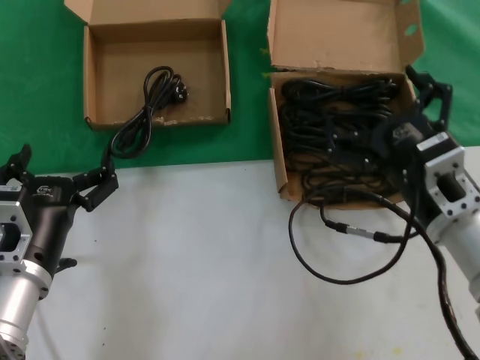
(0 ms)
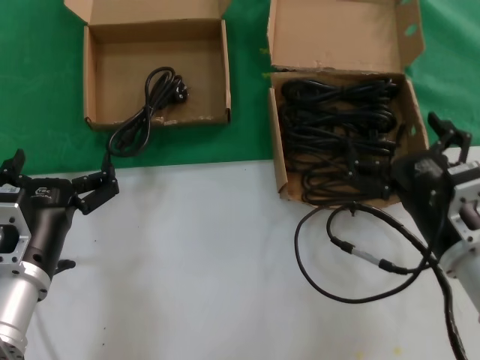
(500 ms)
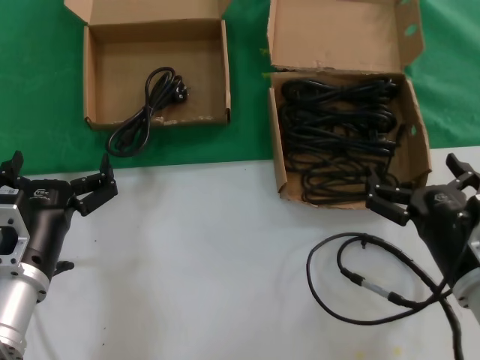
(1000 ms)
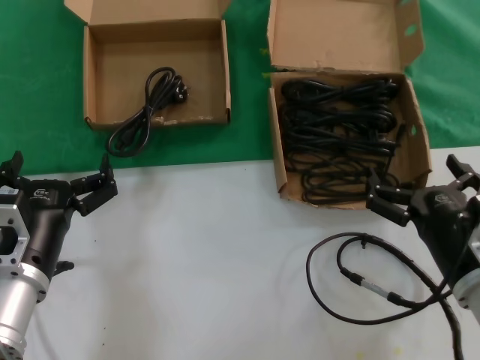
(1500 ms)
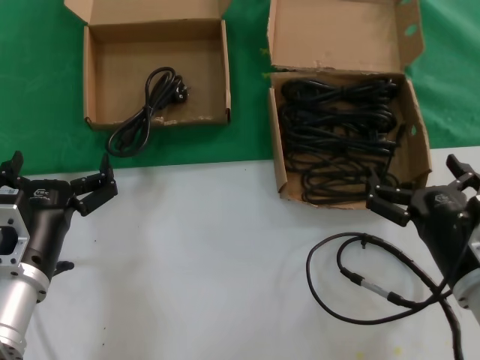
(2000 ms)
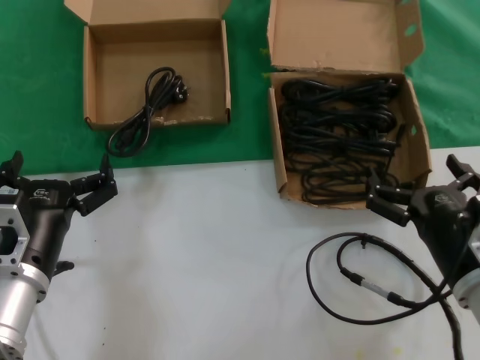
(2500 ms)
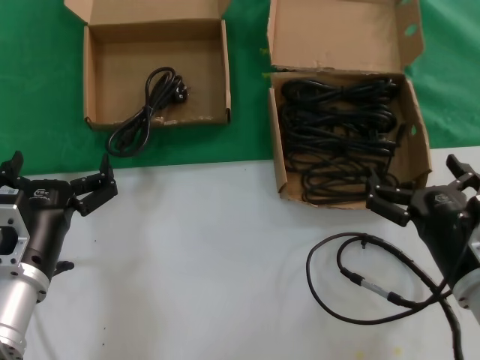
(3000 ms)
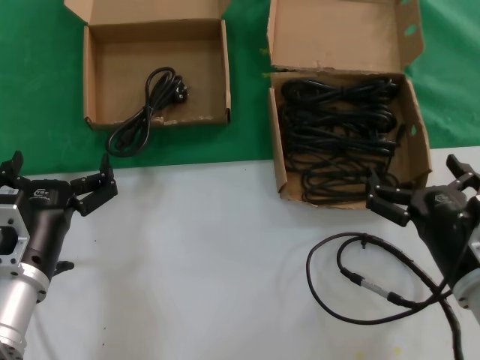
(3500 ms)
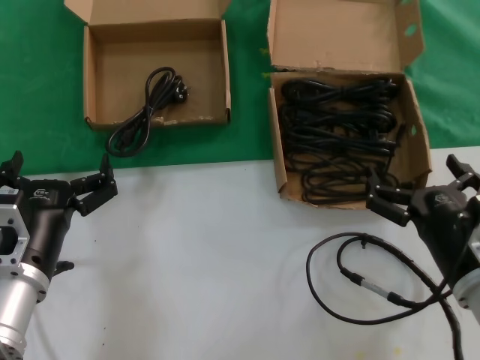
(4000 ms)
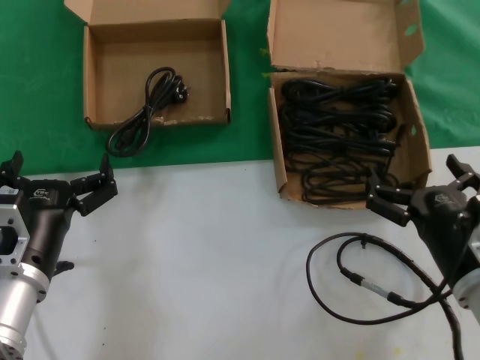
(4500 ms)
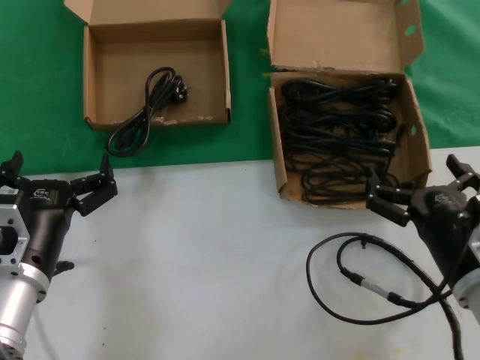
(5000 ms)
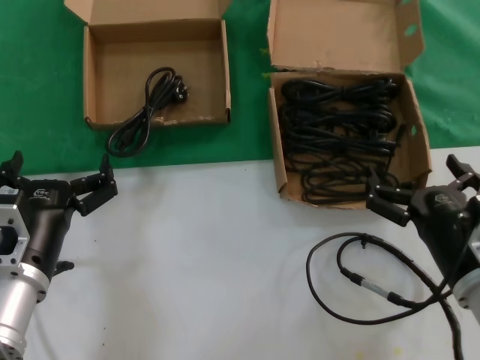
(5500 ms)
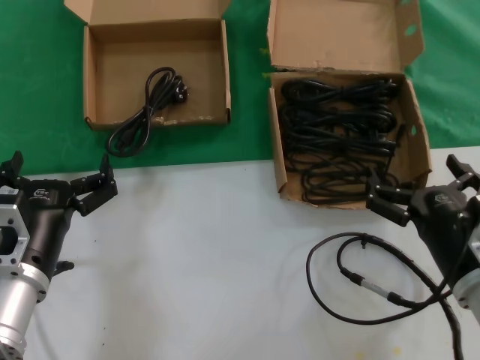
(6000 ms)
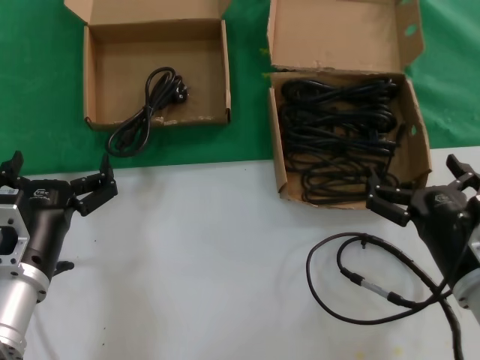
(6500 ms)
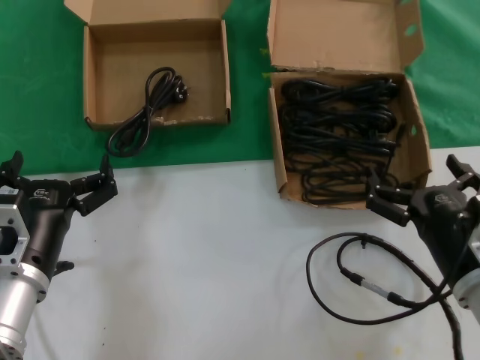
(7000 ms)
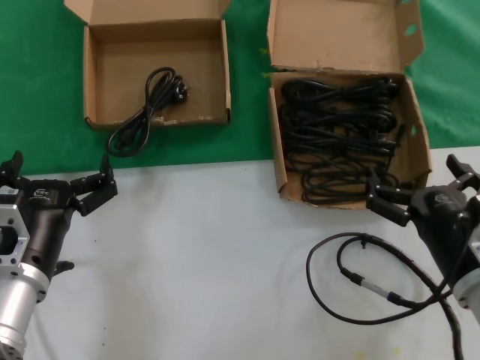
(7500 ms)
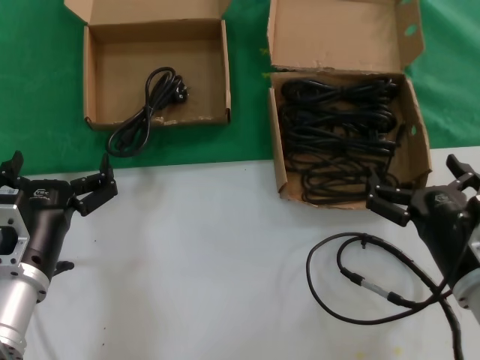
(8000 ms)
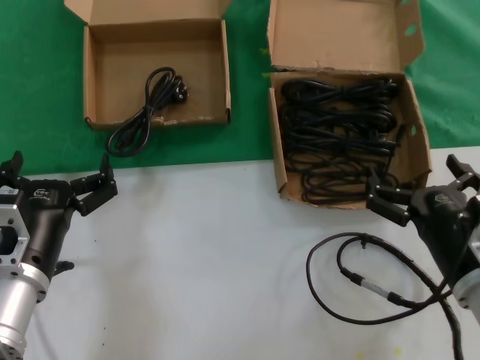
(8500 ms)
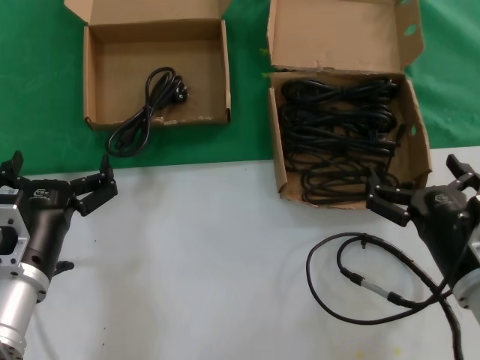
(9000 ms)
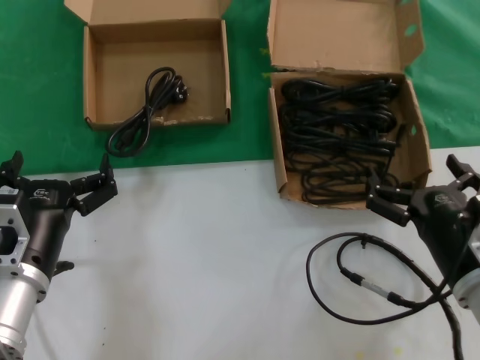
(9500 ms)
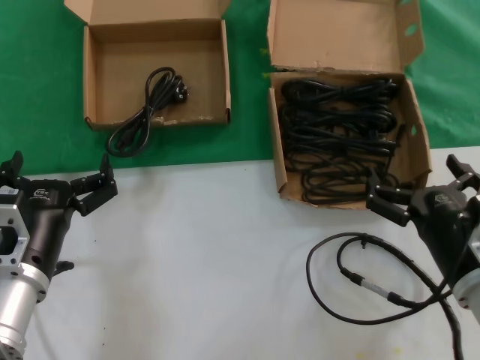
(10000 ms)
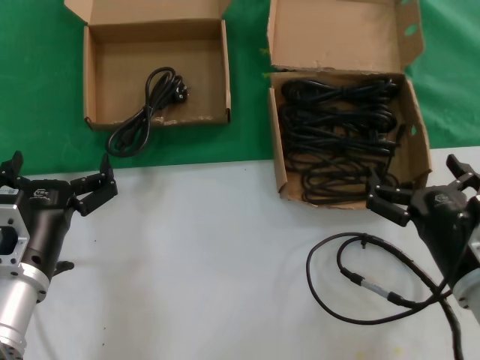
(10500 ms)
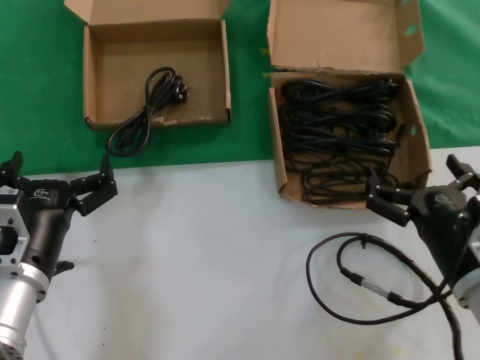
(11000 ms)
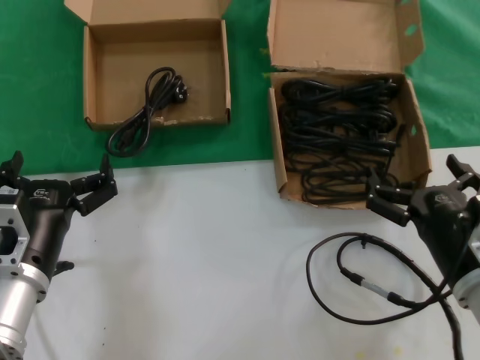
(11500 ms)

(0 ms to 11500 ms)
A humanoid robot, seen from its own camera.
Task of the whole recording: take the parts from the box containing them and put them into an empty box.
0 ms - 2000 ms: The right hand travels downward by some 5 cm.
2000 ms - 11500 ms: The two hands keep their place.

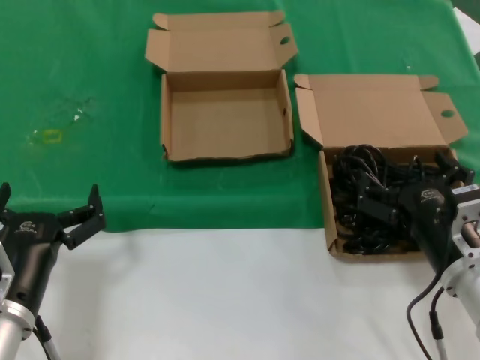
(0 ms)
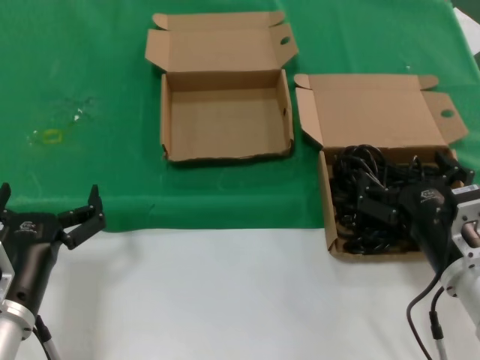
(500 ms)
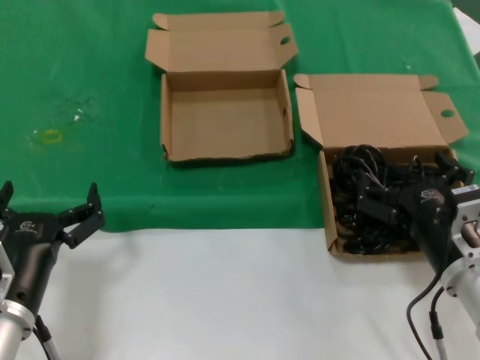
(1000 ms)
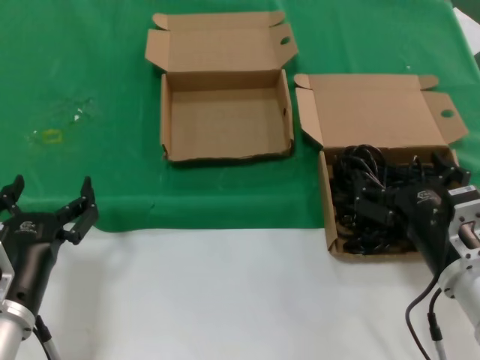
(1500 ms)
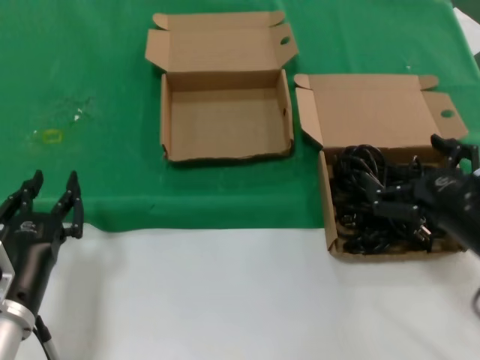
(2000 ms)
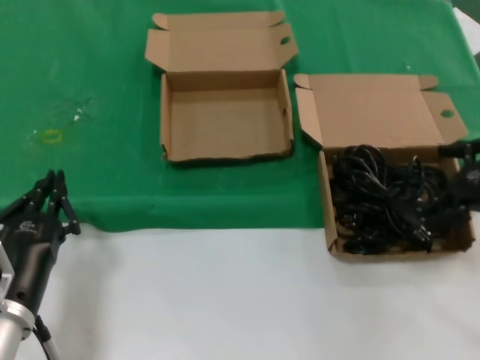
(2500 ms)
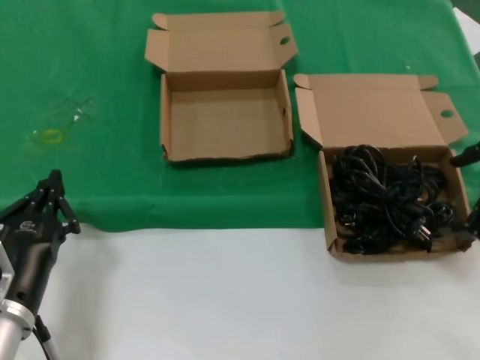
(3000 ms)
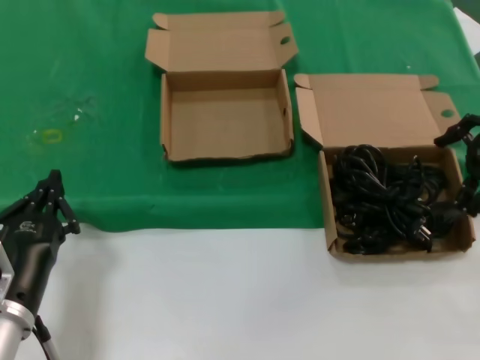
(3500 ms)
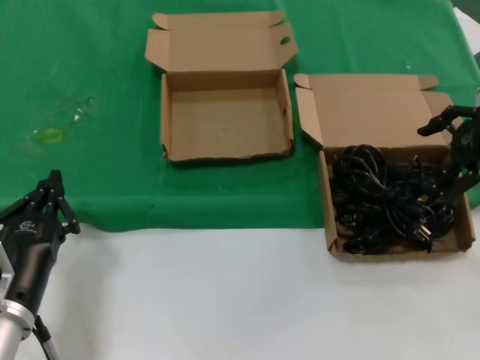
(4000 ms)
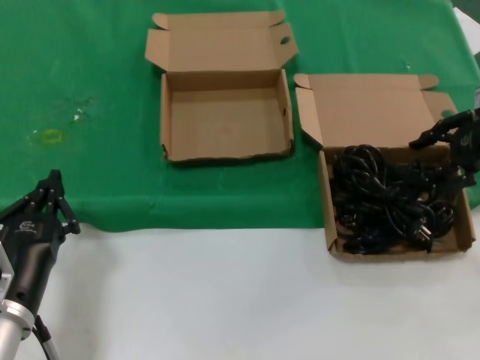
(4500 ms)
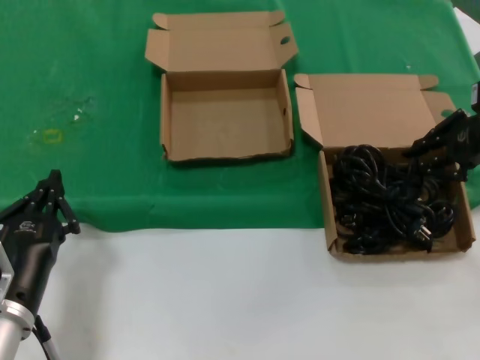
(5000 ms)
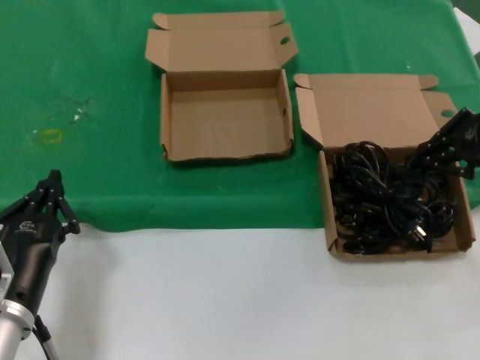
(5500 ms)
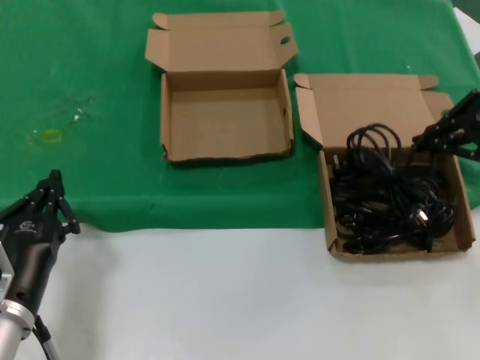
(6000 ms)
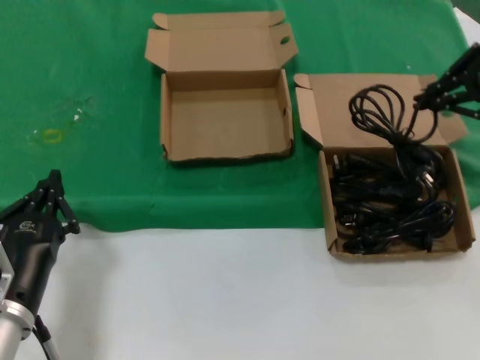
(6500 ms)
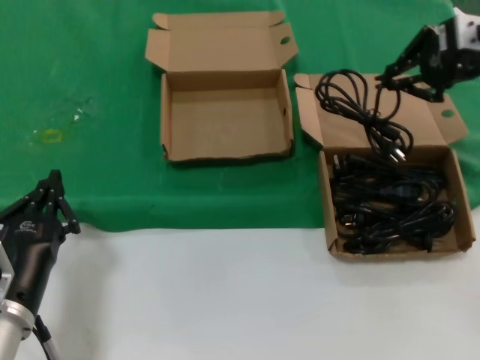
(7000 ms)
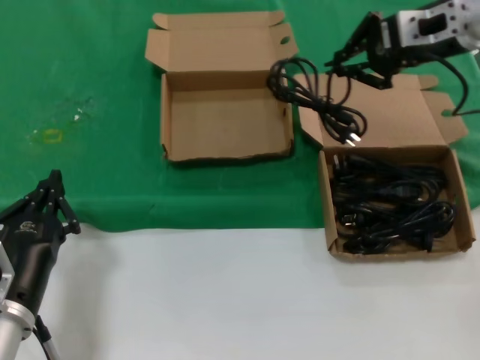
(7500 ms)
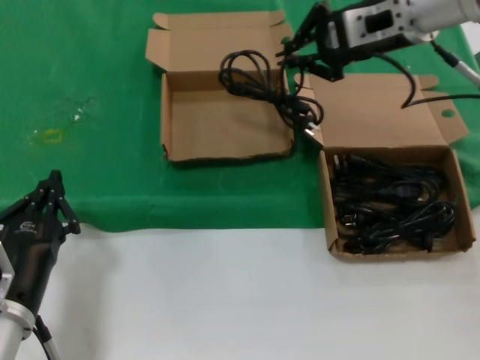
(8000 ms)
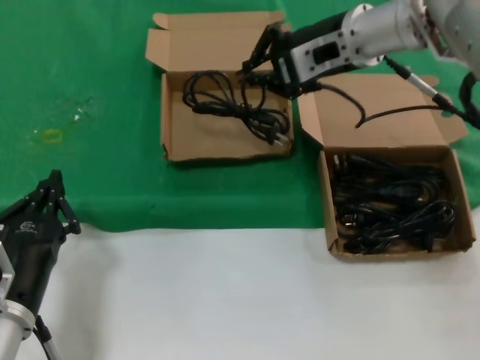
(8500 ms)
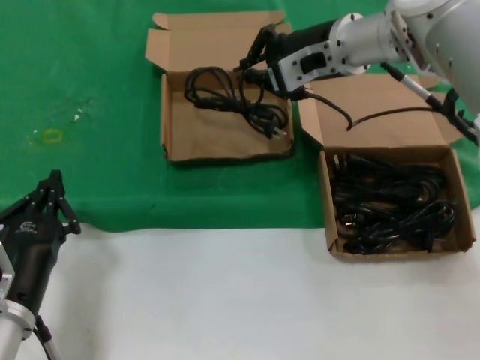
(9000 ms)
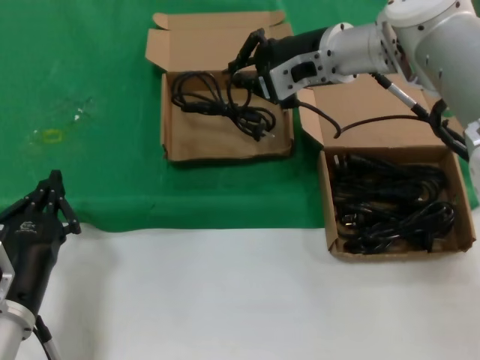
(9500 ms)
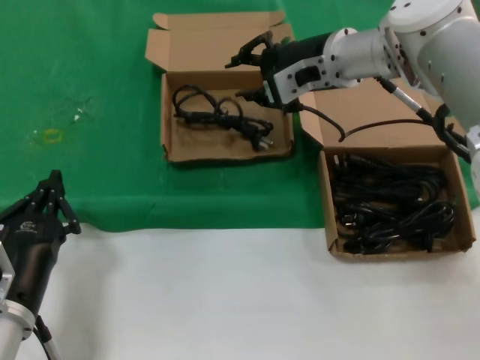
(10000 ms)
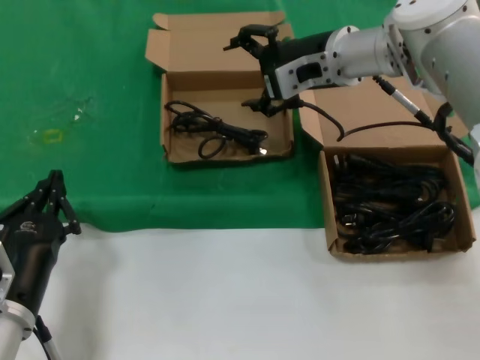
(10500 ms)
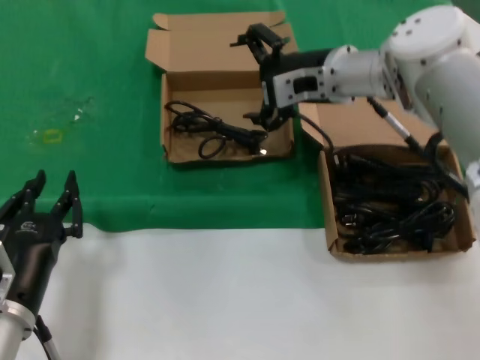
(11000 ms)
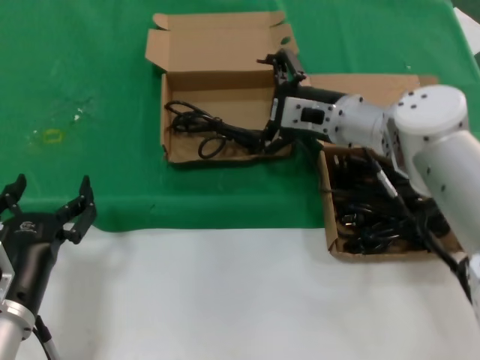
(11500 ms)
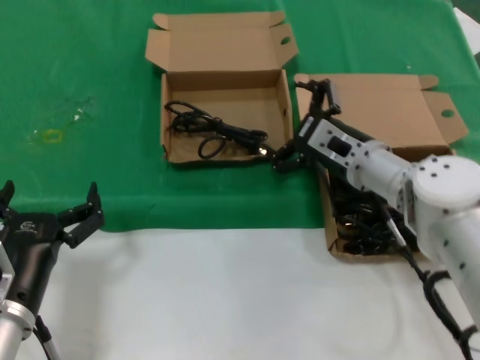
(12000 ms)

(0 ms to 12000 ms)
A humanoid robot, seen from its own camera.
Task of the whole recording: take the parts from the box containing them and put them into an empty box.
Step, 0 ms - 5500 ms: Grasp the data cable.
Step, 6000 ms - 9500 ms: Place the data cable in the another box.
0 ms - 2000 ms: The right hand changes place by some 5 cm.
2000 ms - 4000 ms: The right hand goes roughly 25 cm forward, upward and to the right.
4000 ms - 6000 ms: The hands make only small movements.
6000 ms - 8000 ms: The right hand goes roughly 20 cm to the left.
8000 ms - 10000 ms: The right hand is displaced to the left and downward by some 10 cm.
10000 ms - 12000 ms: The right hand heads downward and backward, covering some 15 cm.

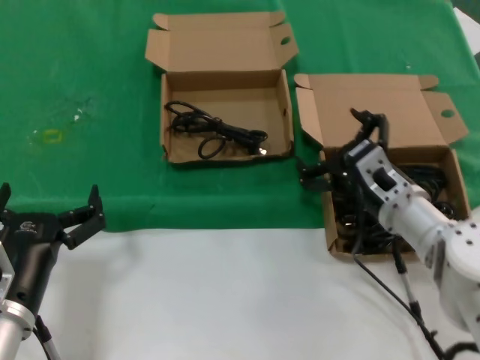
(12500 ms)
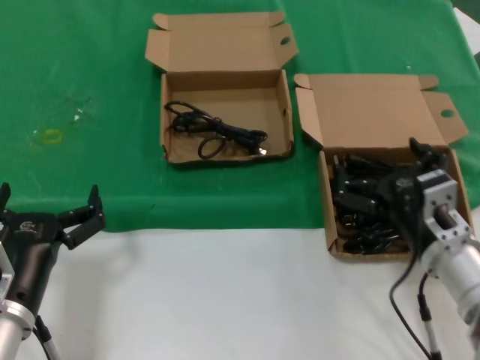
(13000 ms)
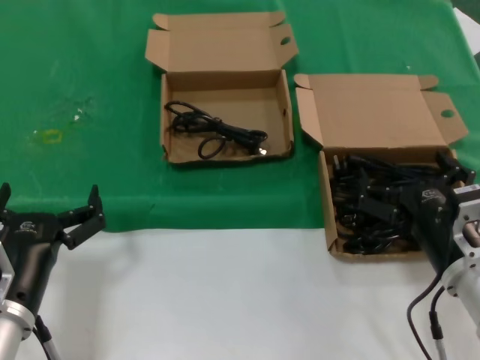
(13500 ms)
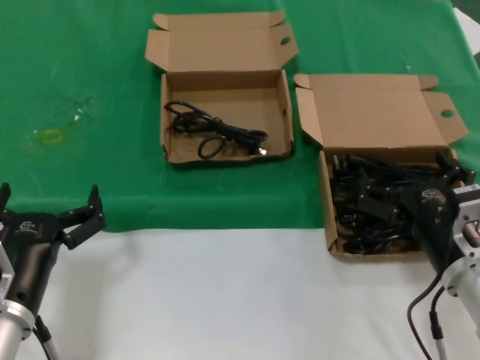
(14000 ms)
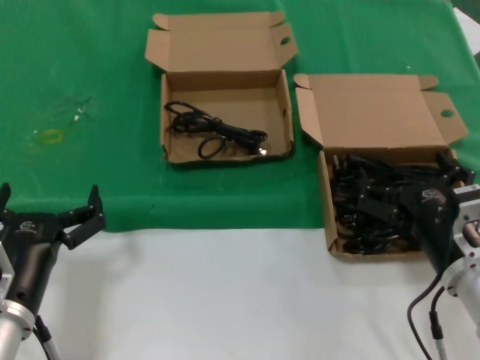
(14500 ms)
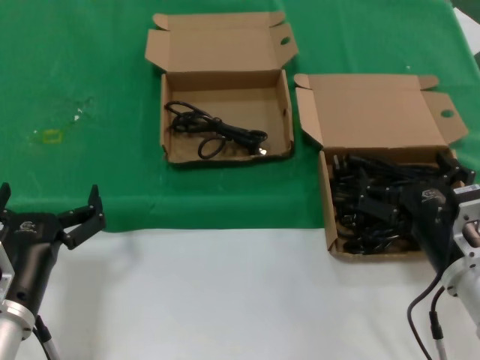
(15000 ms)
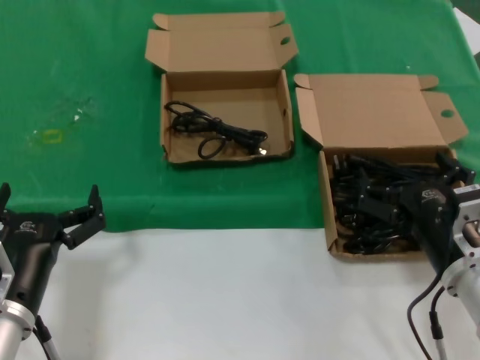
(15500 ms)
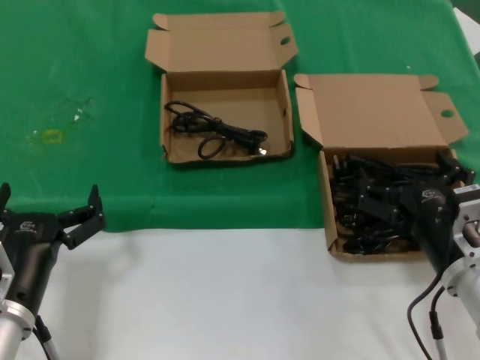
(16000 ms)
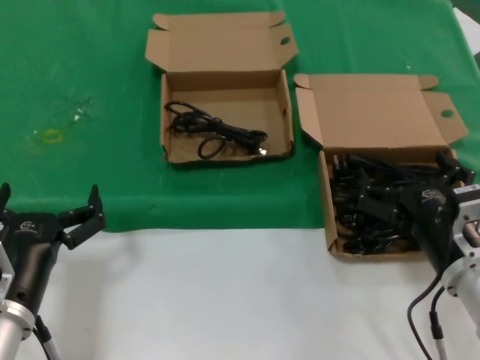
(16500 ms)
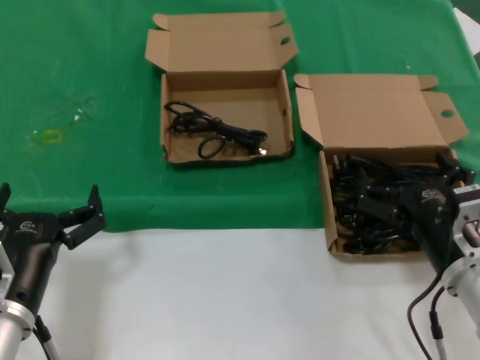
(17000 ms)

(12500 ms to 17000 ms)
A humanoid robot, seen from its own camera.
Task of the whole recording: take the parts from the box containing them and put them into an empty box.
12500 ms - 14500 ms: The right hand is displaced backward by about 10 cm.
14500 ms - 17000 ms: The two hands keep their place.
